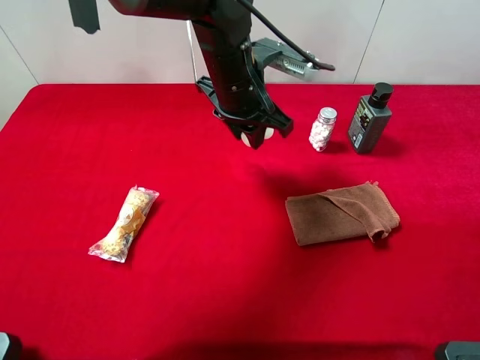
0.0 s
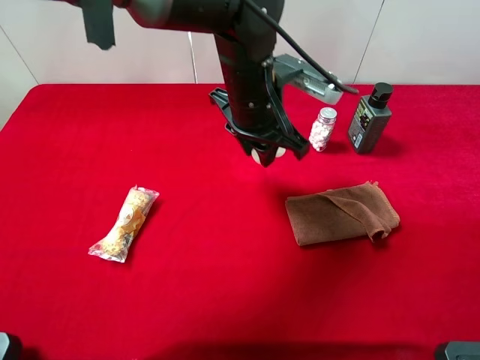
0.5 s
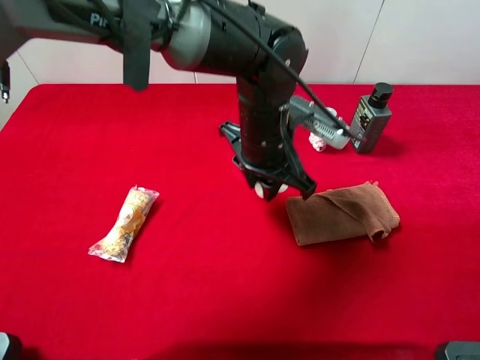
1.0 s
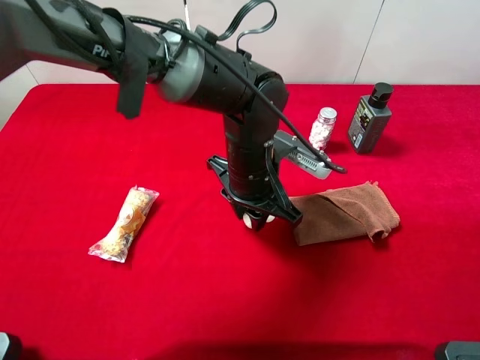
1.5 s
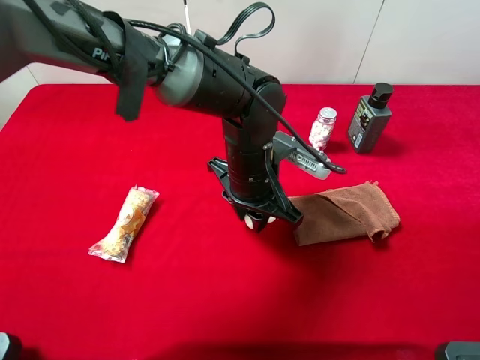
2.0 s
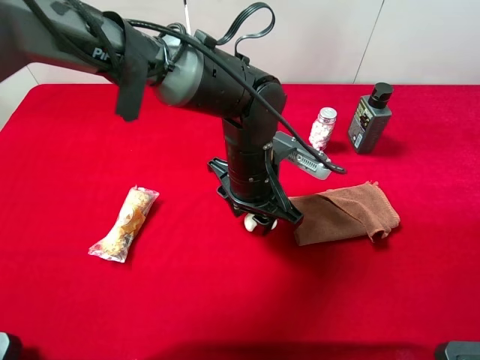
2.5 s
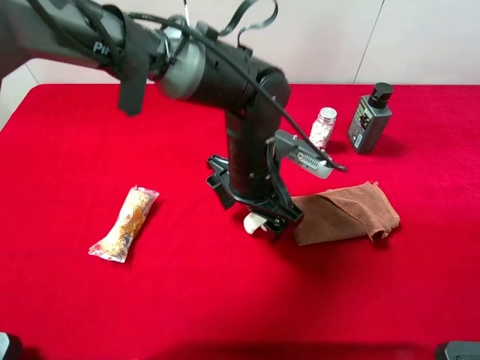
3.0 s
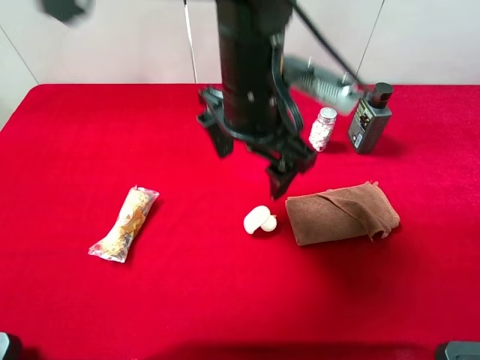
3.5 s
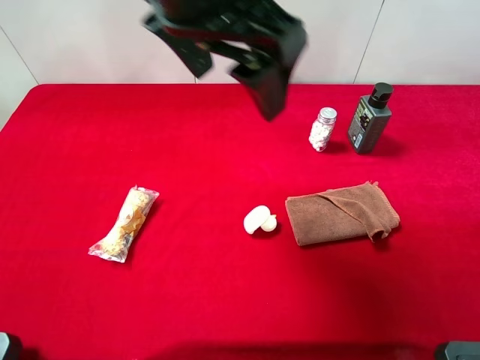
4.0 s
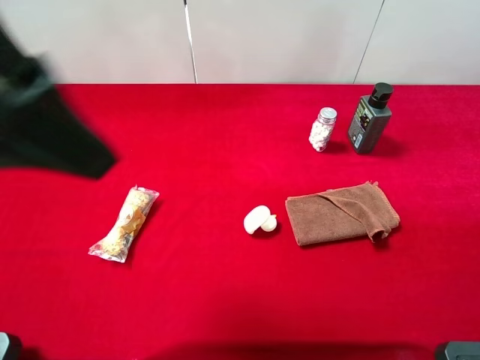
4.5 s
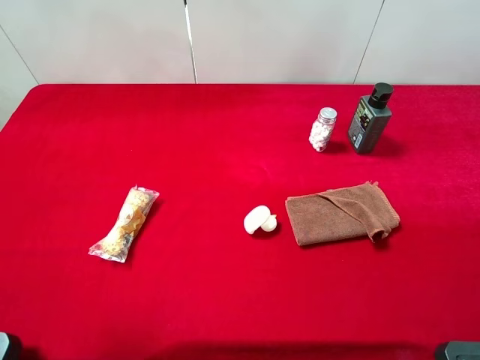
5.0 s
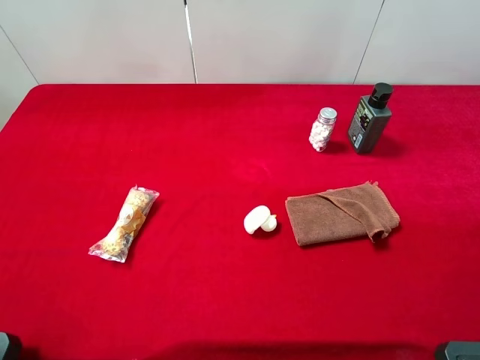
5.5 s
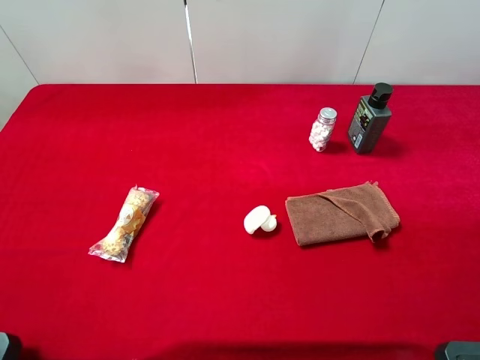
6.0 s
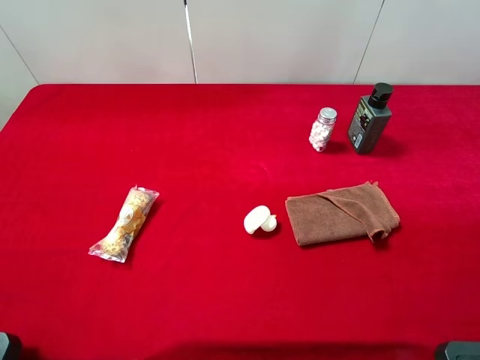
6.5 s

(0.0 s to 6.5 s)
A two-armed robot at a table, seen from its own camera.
Task of the whole recording: the gripper move the object.
Step, 0.0 s - 3.0 s: Place the white duck on the table with the left gripper.
0.0 s - 2.0 s: The left gripper heads downward and backward, covering some 10 cm.
2.0 s - 4.5 s: The left gripper goes approximately 35 cm upward, to the left and backward, and opens its fingers.
4.5 s - 6.5 s: The left gripper moves to the left, backward and downward, about 25 cm.

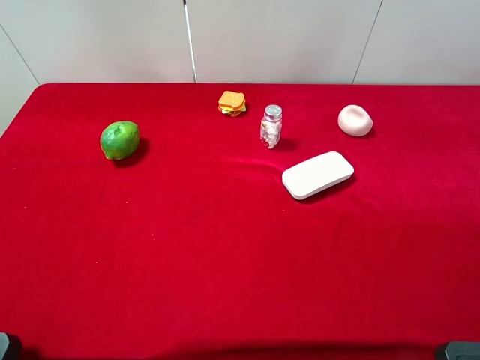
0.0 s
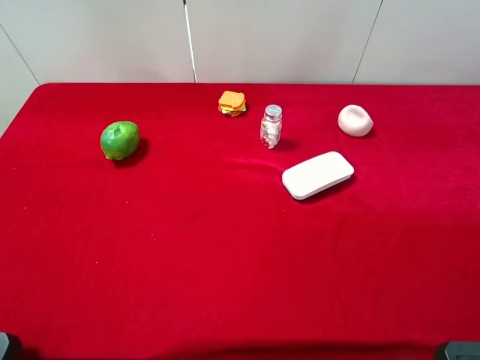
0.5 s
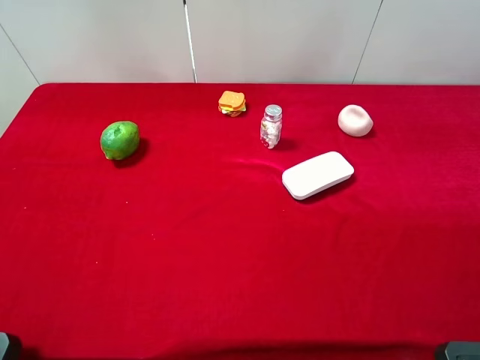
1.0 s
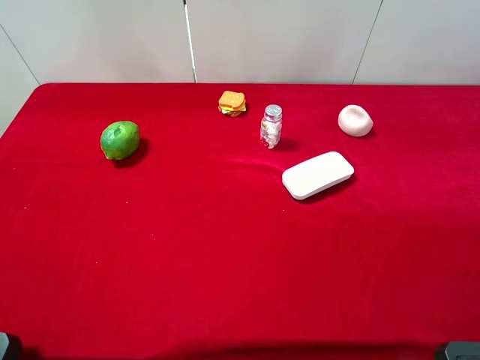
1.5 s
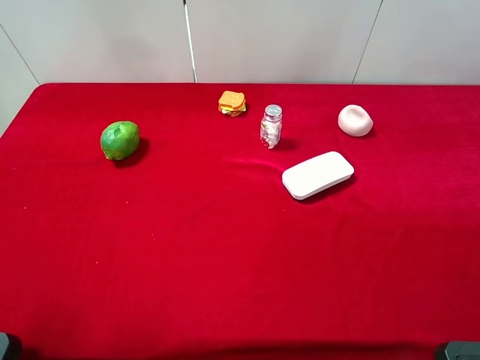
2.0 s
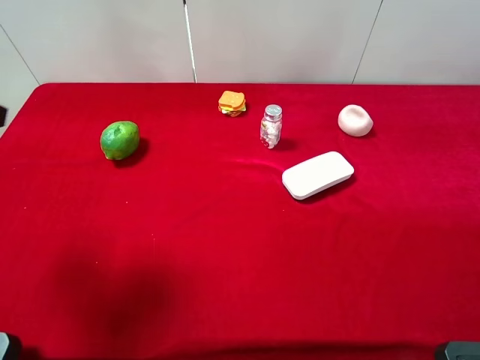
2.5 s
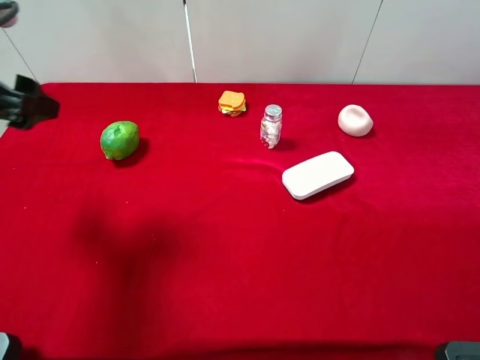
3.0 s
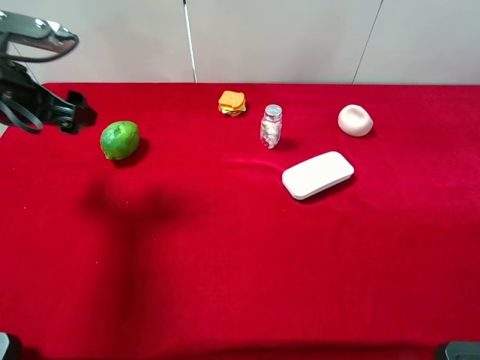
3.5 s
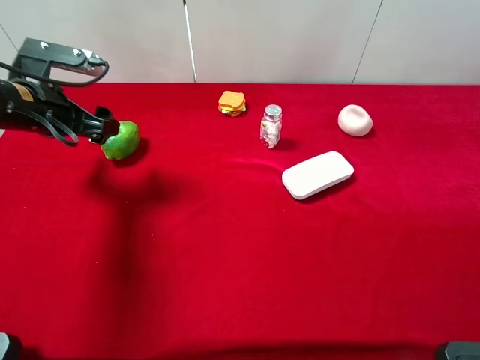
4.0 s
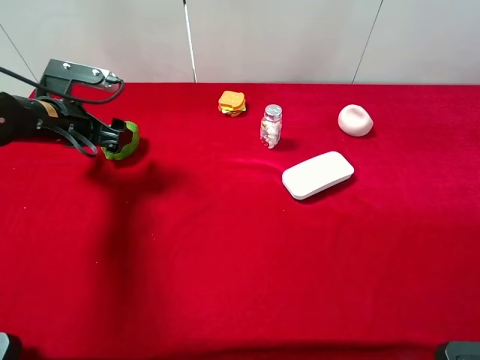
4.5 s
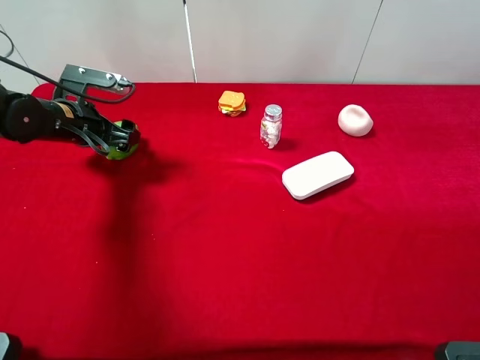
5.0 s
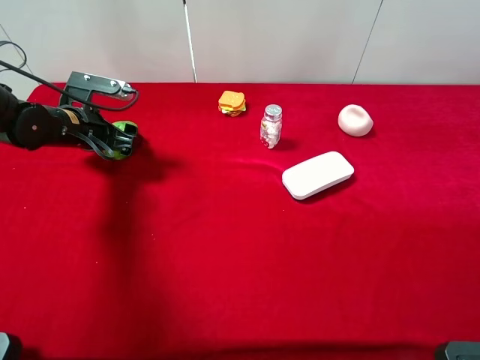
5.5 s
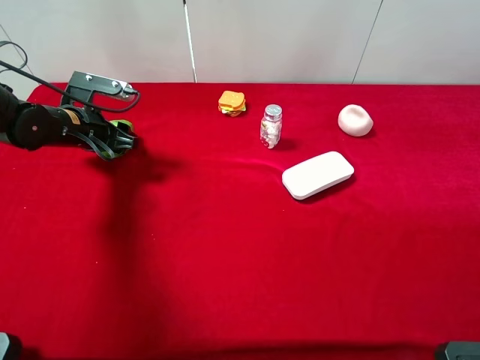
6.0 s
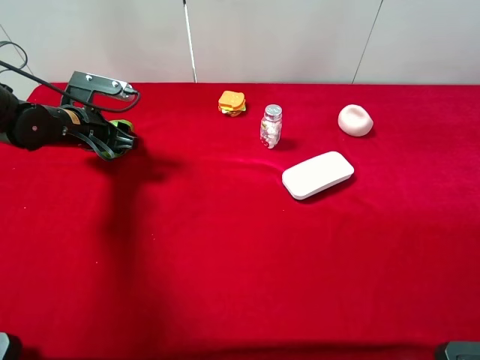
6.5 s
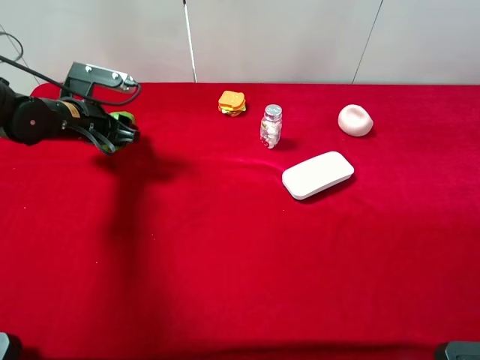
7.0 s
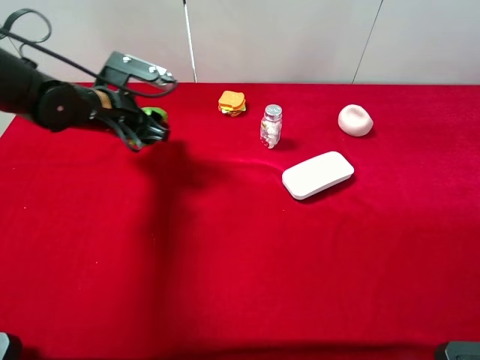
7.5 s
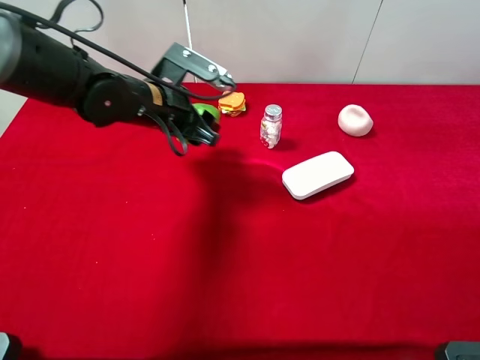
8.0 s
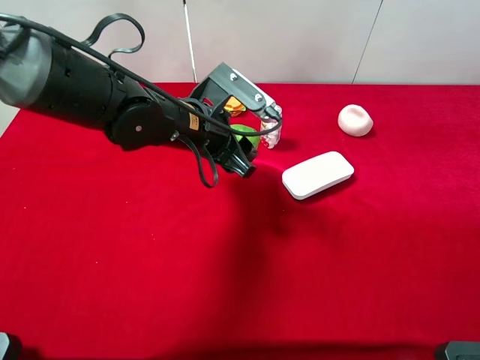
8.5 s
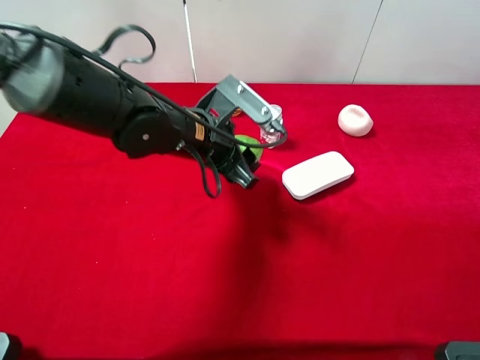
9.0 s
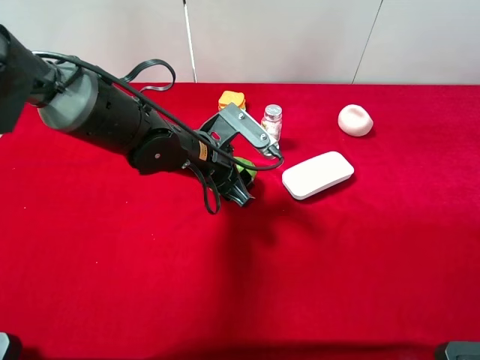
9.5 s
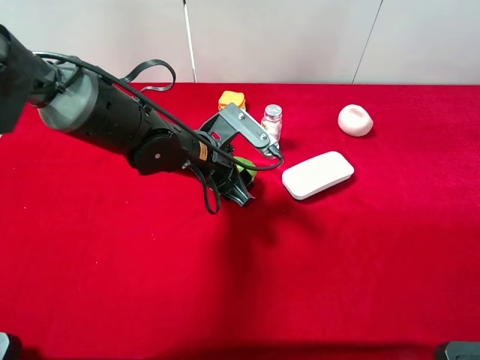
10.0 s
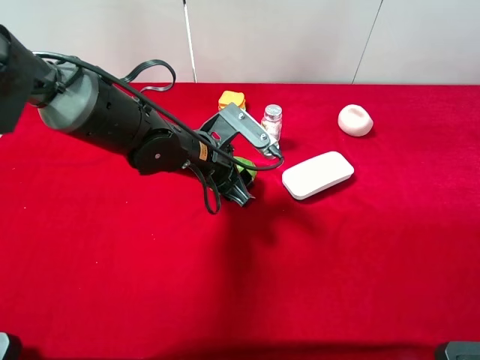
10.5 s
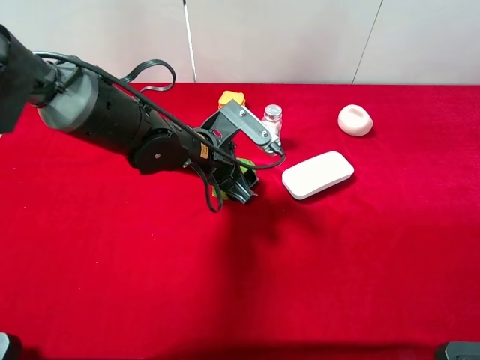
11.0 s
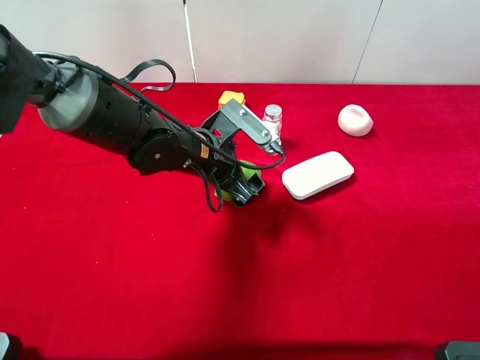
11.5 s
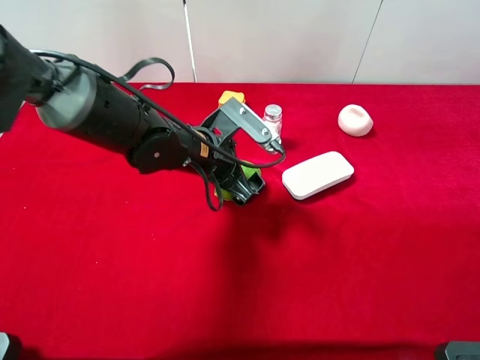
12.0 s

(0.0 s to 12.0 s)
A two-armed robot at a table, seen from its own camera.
Task of the whole recording: the gripper move the object.
2.0 s - 4.0 s: The left gripper is displaced forward and downward by roughly 25 cm.
4.0 s - 6.0 s: The left gripper travels downward by roughly 5 cm, and closes up.
6.0 s - 8.0 s: The left gripper travels to the right by roughly 15 cm.
8.0 s - 10.0 s: The left gripper moves to the right, about 5 cm.
10.0 s - 12.0 s: The left gripper opens its fingers.

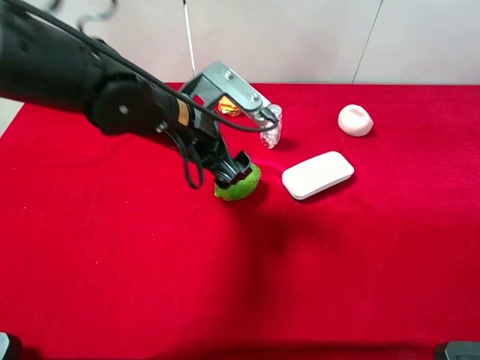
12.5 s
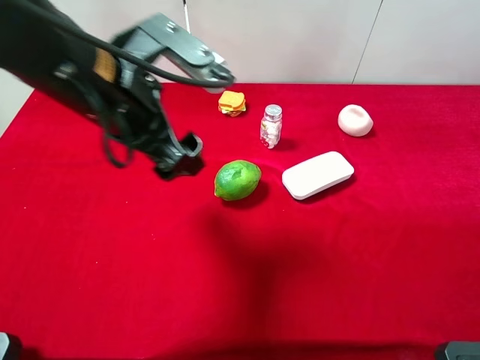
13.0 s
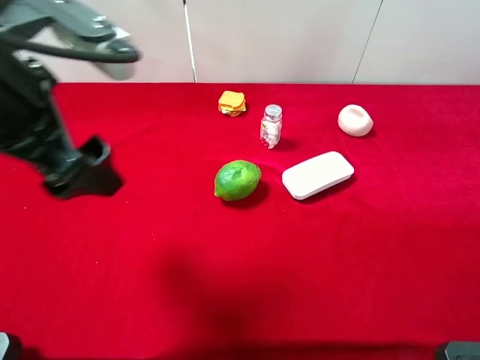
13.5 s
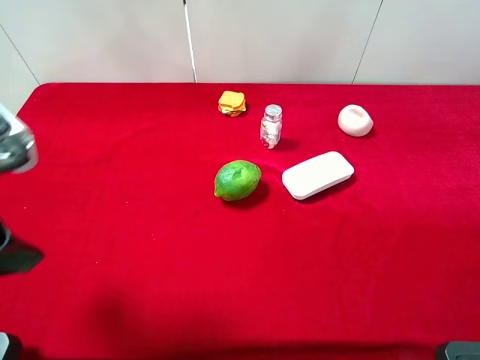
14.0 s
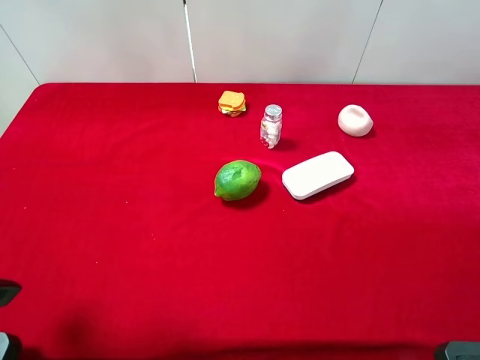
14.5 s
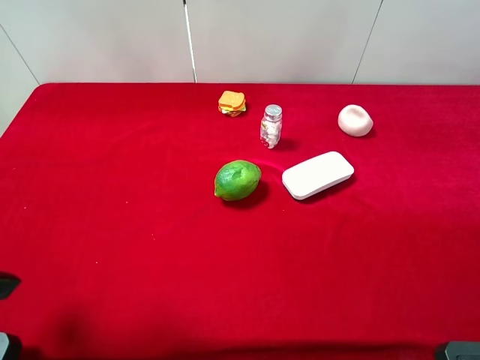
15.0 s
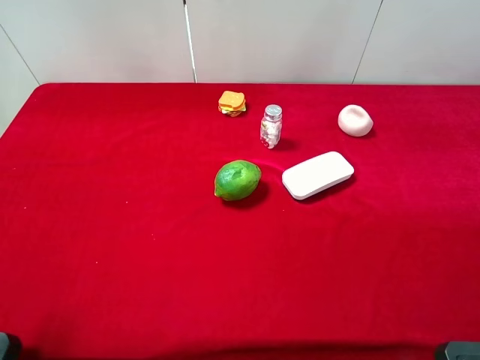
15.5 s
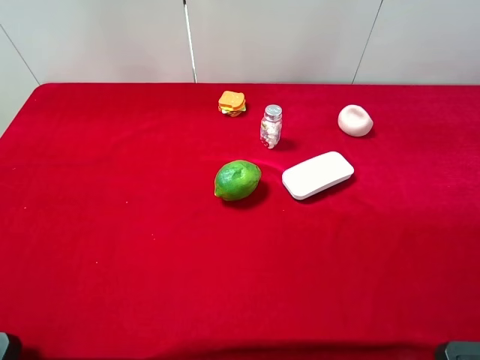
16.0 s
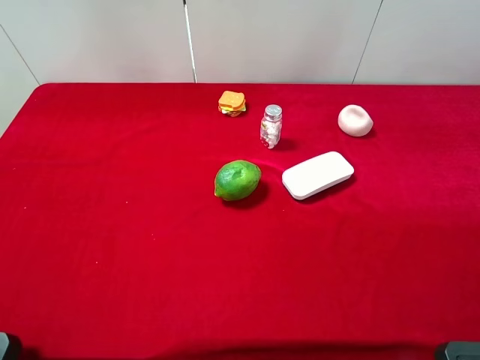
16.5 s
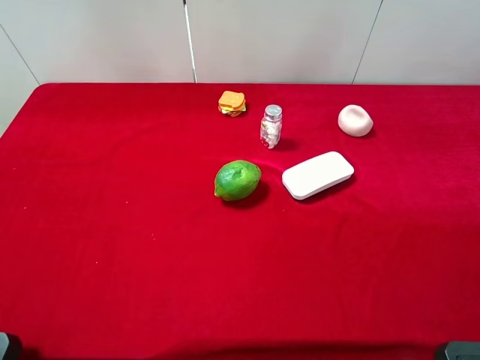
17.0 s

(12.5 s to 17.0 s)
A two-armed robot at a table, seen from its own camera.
Task of the whole recording: the gripper move the object.
12.5 s - 14.5 s: The left gripper heads to the left and backward, covering approximately 25 cm.

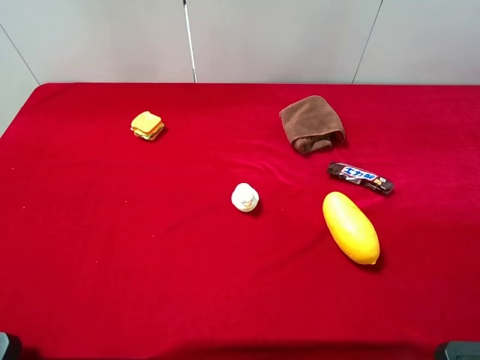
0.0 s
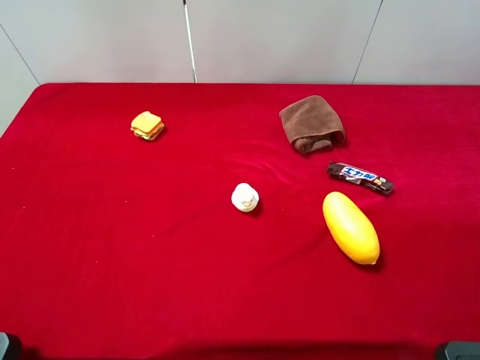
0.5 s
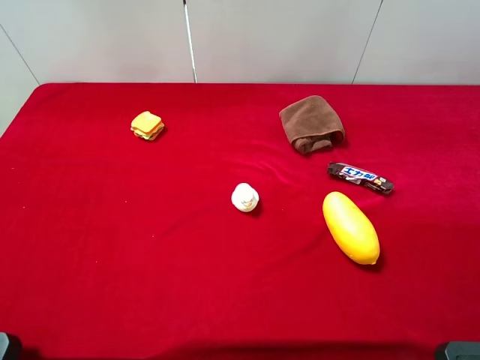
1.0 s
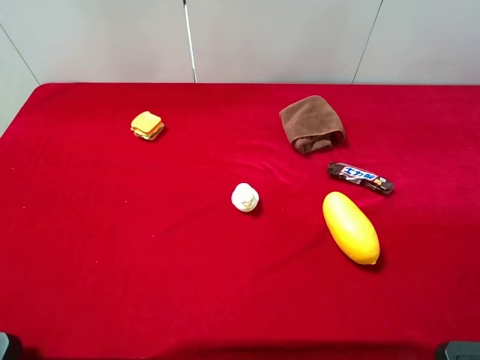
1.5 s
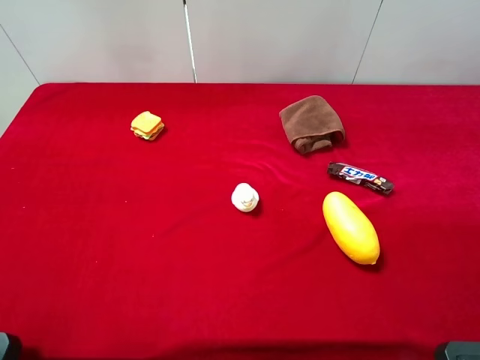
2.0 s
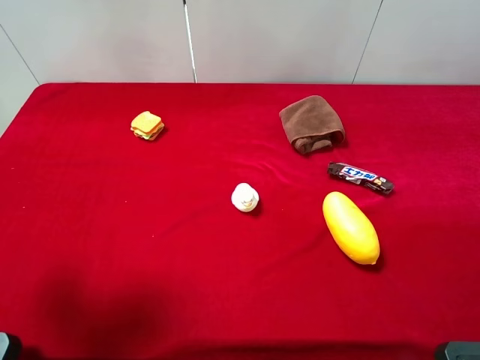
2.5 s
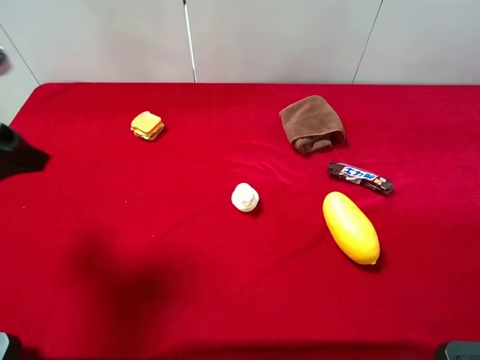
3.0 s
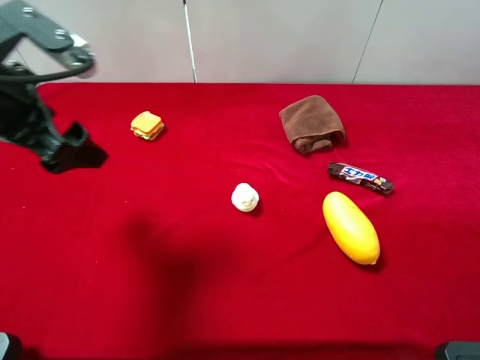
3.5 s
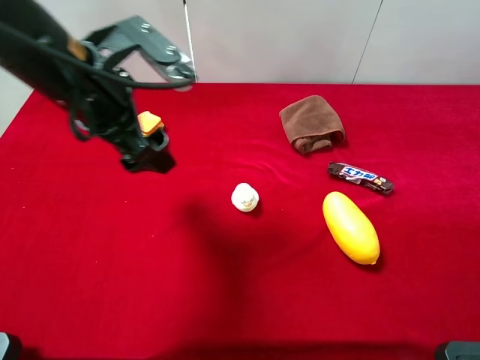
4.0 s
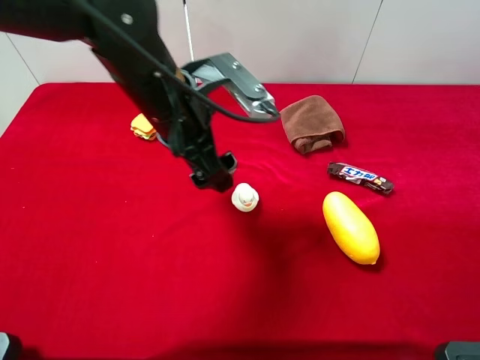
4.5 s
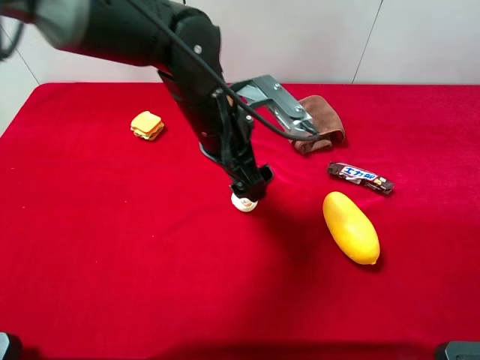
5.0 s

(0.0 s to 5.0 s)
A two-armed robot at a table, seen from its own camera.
Task of the whole recording: the gripper move the object.
0.0 s - 2.5 s: The left gripper is displaced forward by roughly 15 cm.
2.5 s - 5.0 s: The left gripper goes some 35 cm to the right, forward and downward.
